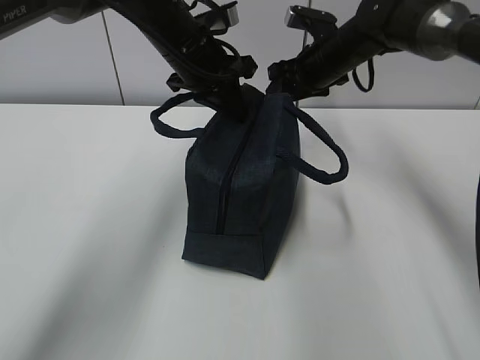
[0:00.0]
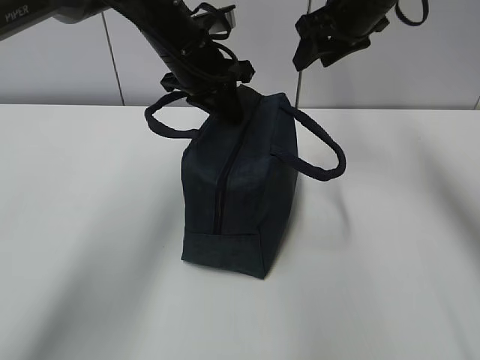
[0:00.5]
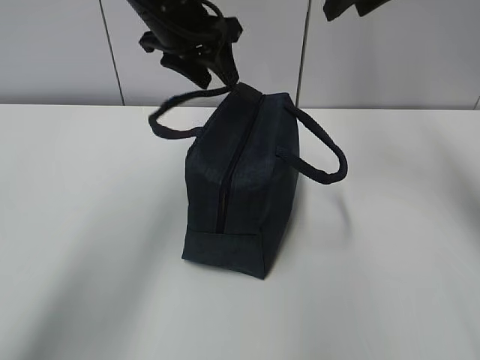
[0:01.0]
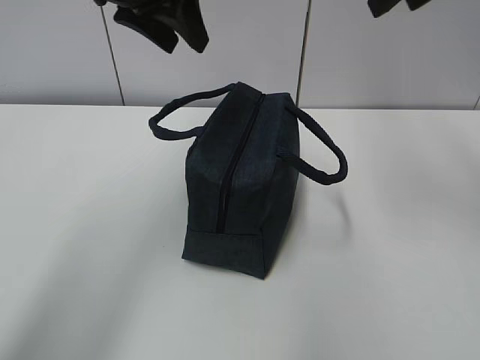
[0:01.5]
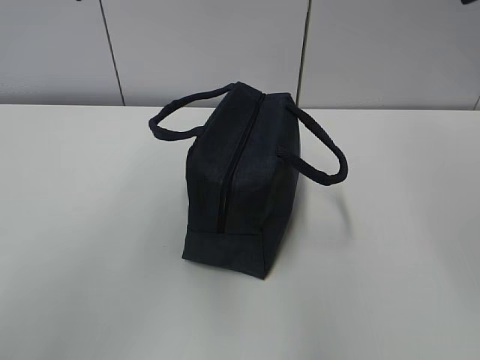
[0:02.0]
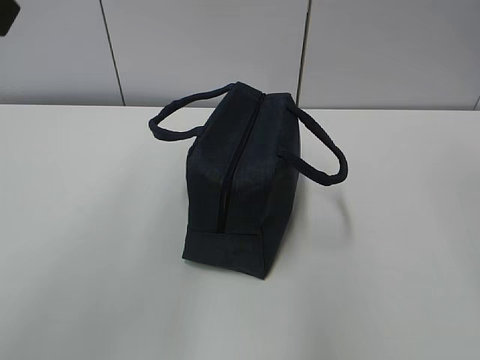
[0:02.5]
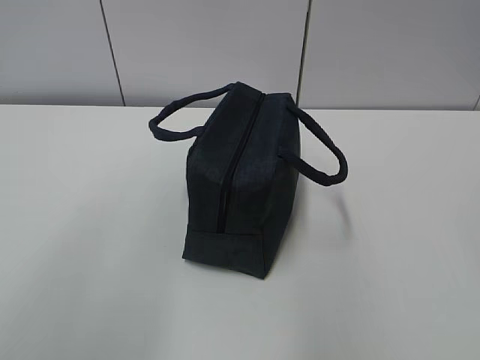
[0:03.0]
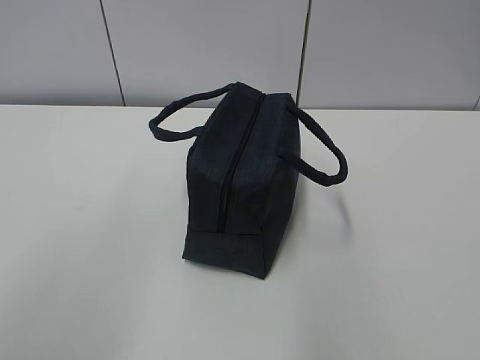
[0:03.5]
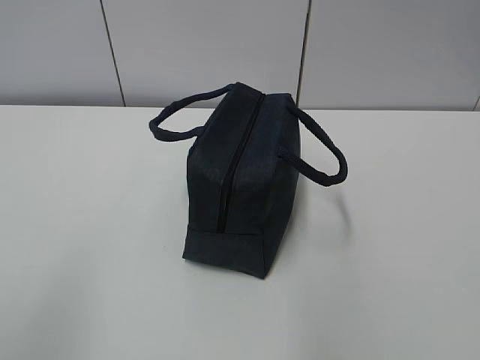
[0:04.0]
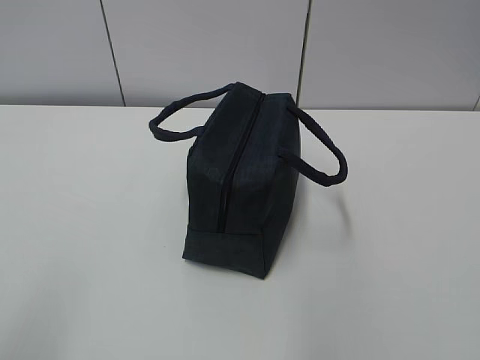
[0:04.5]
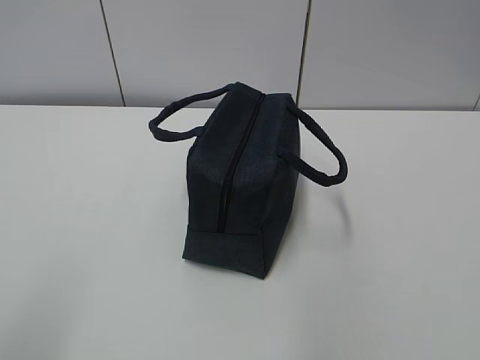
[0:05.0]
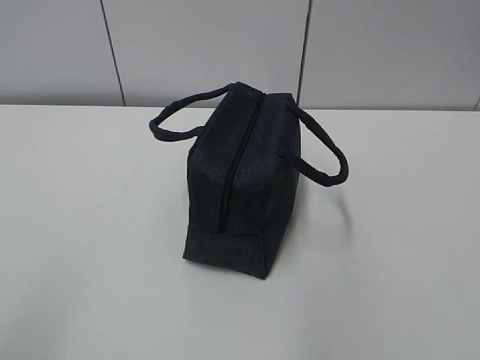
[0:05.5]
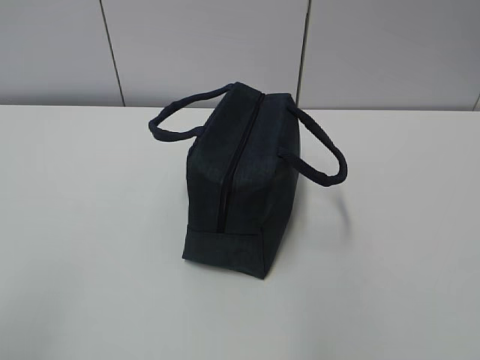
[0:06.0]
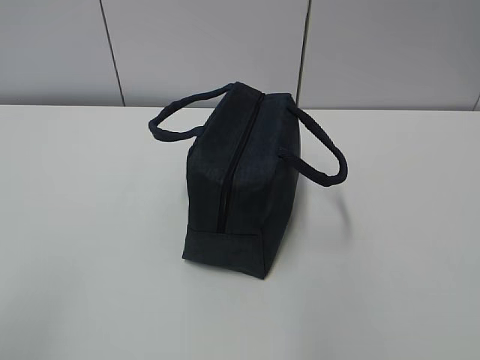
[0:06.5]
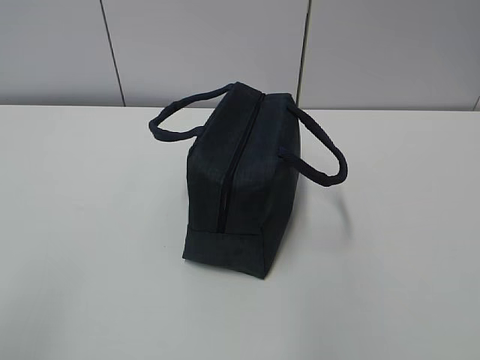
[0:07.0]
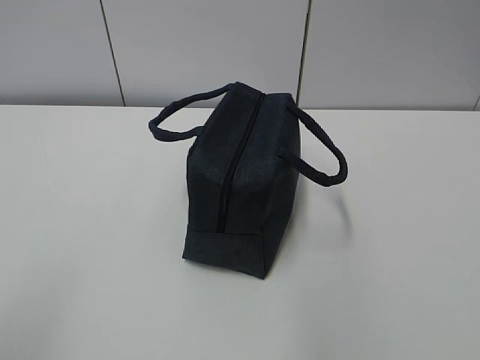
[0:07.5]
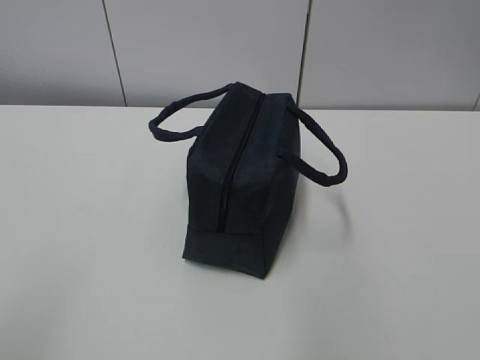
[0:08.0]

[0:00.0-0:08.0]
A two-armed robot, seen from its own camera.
0:00.0 to 0:02.0: The right gripper shifts about 35 cm backward and upward, while the left gripper shifts about 30 cm upward, backward and to the left, and opens its fingers.
0:02.0 to 0:04.0: The right gripper heads backward and downward, covering some 30 cm. The left gripper travels backward, to the left and downward by about 30 cm.
